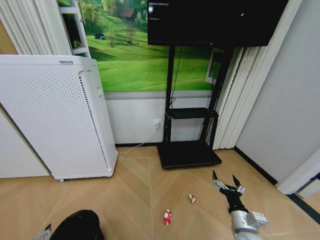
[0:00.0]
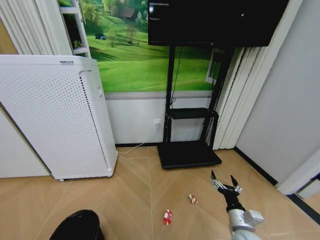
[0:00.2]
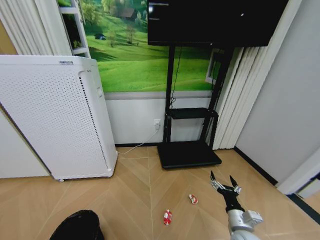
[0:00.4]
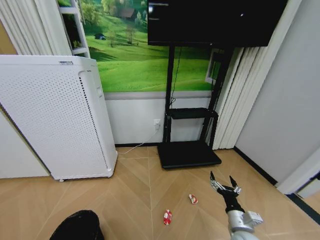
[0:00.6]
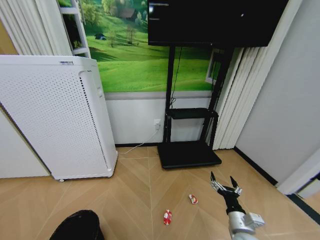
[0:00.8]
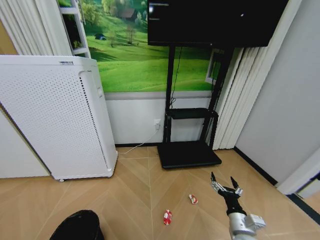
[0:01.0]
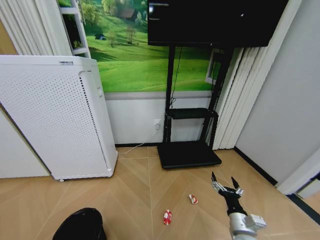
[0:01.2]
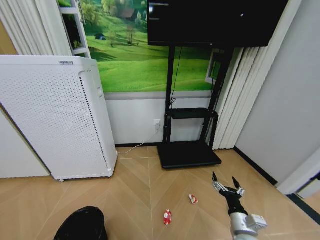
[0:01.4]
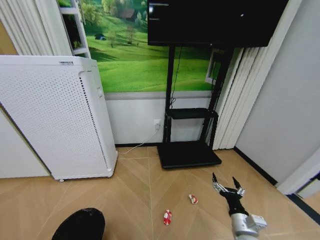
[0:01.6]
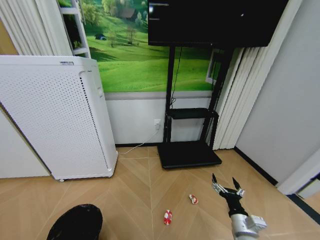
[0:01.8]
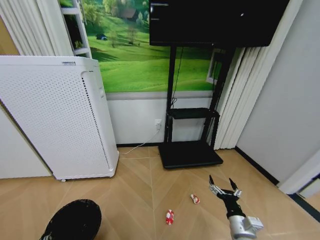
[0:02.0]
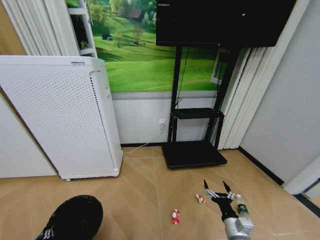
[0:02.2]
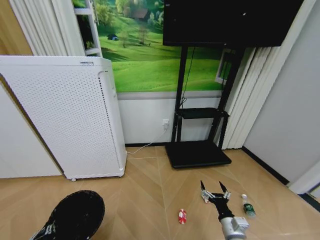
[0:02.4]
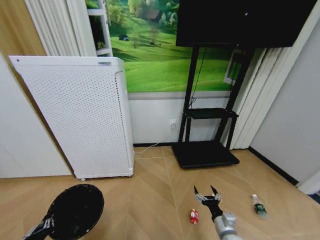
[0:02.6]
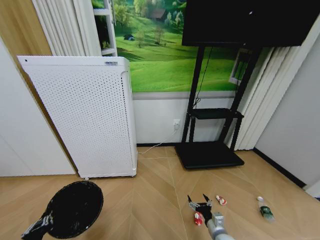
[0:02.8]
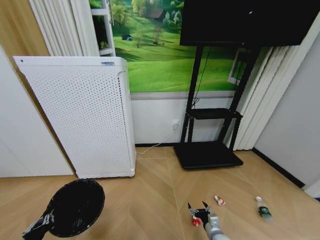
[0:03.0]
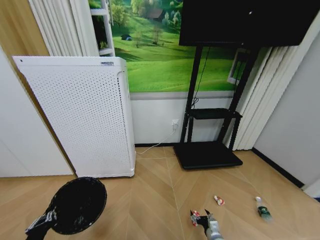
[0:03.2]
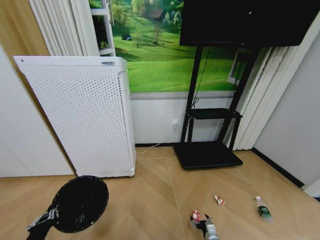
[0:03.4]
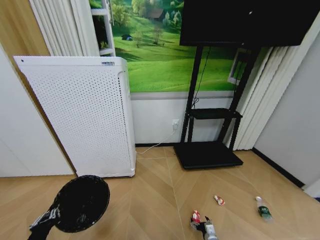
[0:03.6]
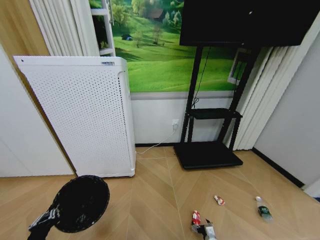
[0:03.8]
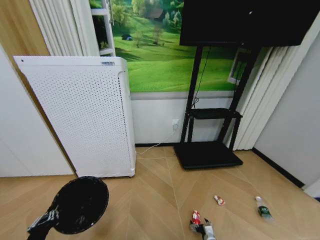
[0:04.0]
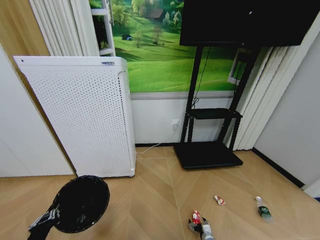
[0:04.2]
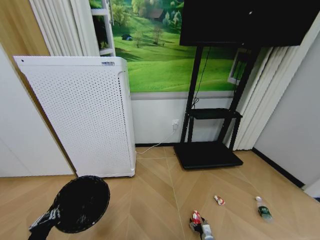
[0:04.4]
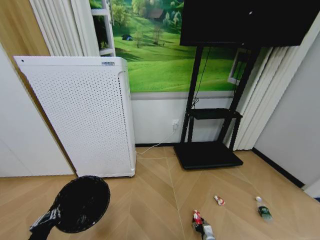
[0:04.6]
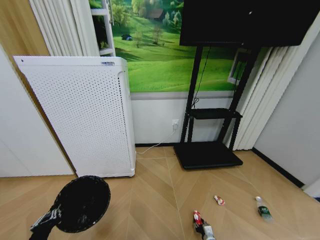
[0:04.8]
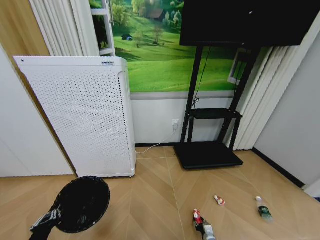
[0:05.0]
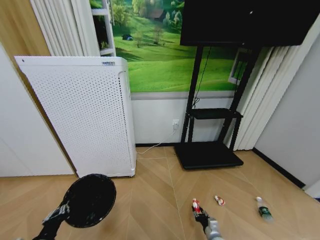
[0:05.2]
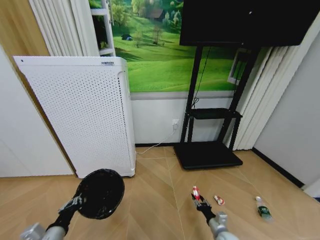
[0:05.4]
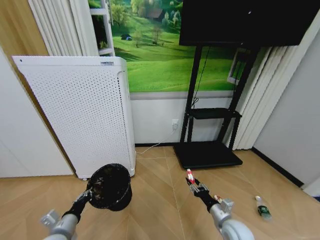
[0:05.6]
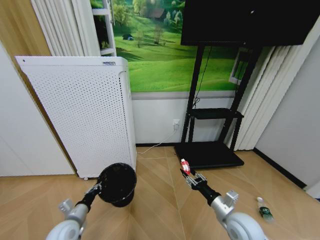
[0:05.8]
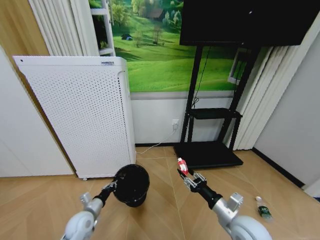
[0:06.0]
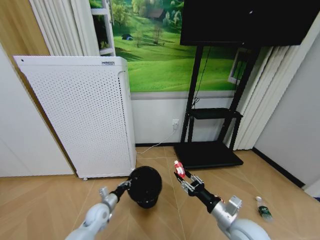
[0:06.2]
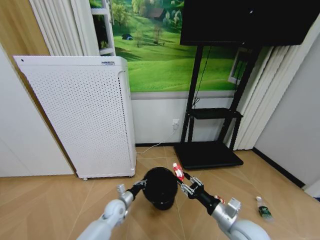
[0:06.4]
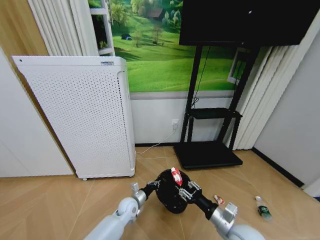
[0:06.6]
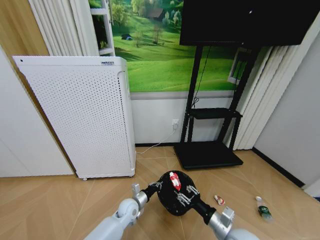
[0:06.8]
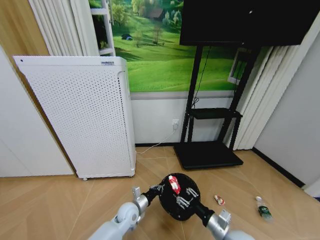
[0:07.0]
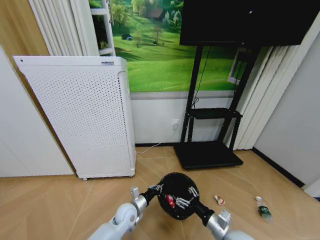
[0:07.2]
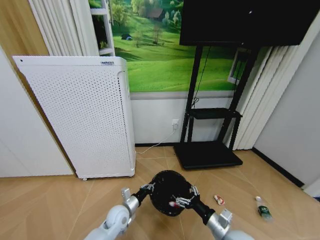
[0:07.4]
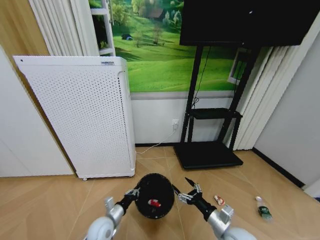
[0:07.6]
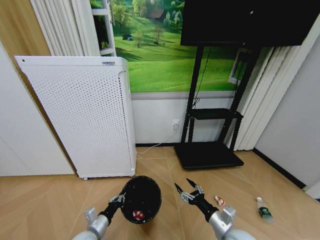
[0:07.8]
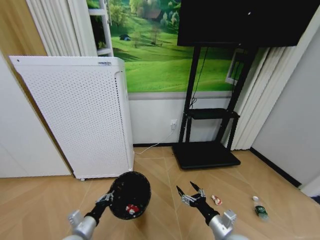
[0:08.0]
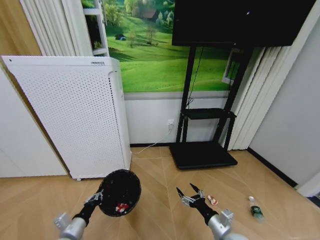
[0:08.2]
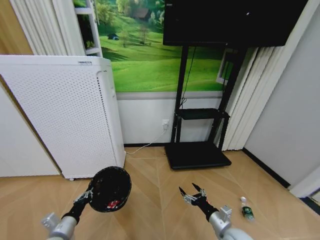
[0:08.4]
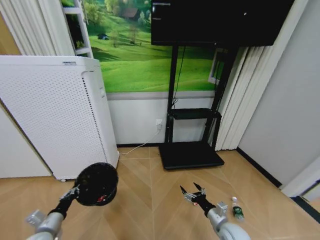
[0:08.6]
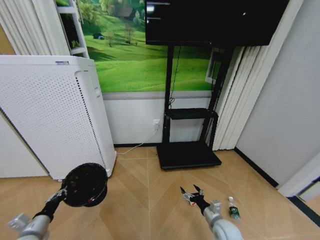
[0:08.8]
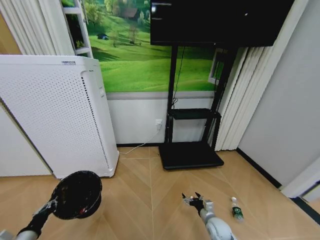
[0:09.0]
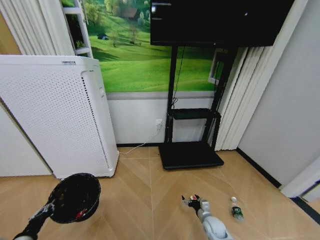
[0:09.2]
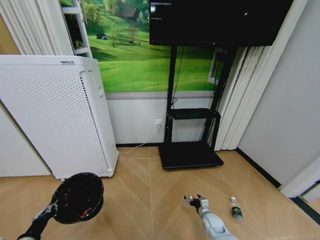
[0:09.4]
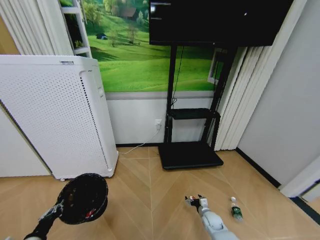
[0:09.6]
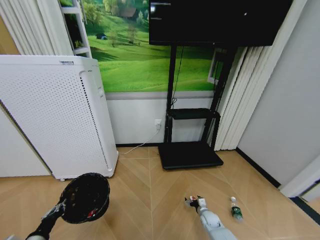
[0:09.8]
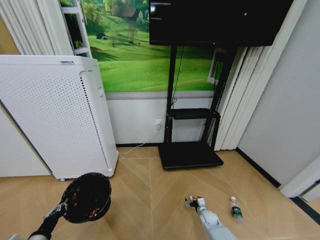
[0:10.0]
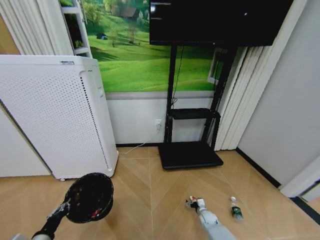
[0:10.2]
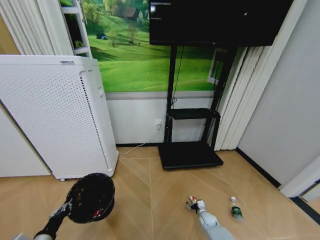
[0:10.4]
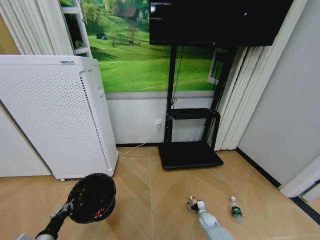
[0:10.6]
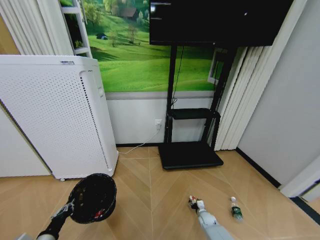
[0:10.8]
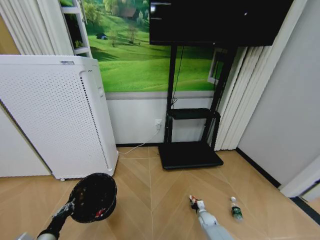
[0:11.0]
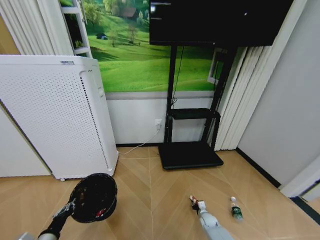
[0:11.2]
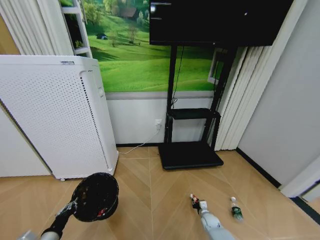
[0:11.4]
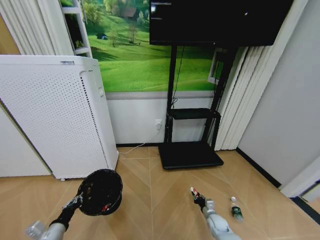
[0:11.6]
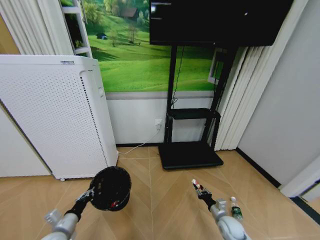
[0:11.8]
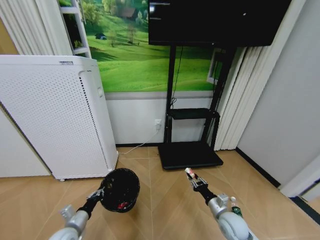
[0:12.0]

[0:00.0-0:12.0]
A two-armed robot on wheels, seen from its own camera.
Task of the whole recording: Pick up the trash bin and place the garbage on the floor into it.
0:01.6 to 0:03.0: The right gripper shifts roughly 15 cm downward, while the left gripper shifts roughly 5 cm upward.
0:03.0 to 0:04.4: The right gripper travels downward by about 10 cm.
0:04.4 to 0:06.0: The right gripper is displaced upward by roughly 35 cm, and closes. Meanwhile the left gripper travels forward and downward by about 20 cm.
0:06.0 to 0:07.6: The right gripper goes about 5 cm downward, and opens its fingers; the left gripper is displaced to the right by about 10 cm.
0:07.6 to 0:09.0: The left gripper goes some 25 cm to the left and backward, while the right gripper is displaced downward and forward by roughly 15 cm.
0:09.0 to 0:10.4: The right gripper shifts about 15 cm downward and forward. Meanwhile the left gripper is displaced to the right by roughly 5 cm.
0:10.4 to 0:12.0: The left gripper travels forward and to the right by roughly 10 cm; the right gripper goes about 15 cm upward, and closes up.

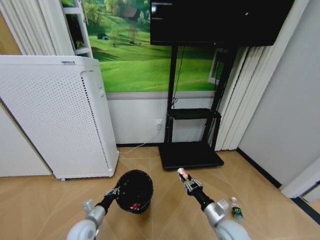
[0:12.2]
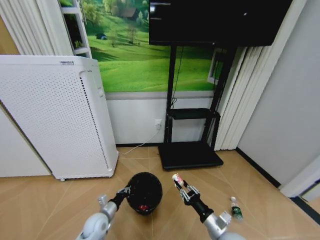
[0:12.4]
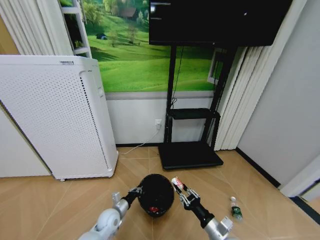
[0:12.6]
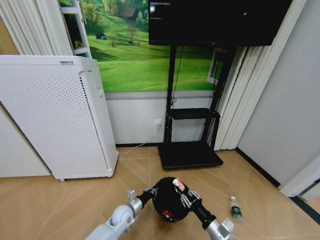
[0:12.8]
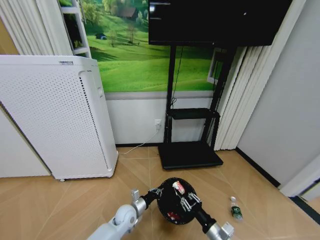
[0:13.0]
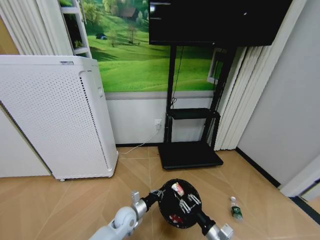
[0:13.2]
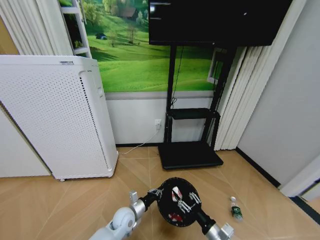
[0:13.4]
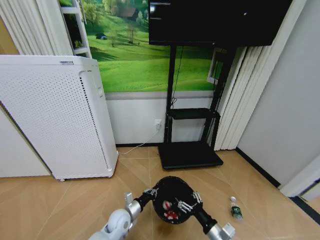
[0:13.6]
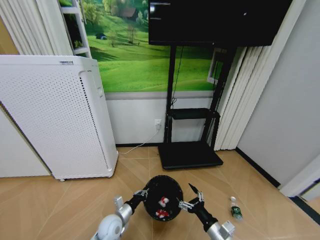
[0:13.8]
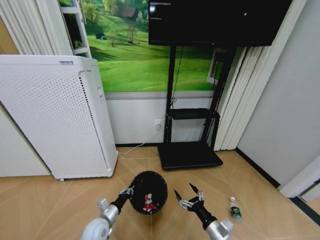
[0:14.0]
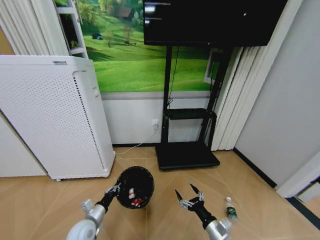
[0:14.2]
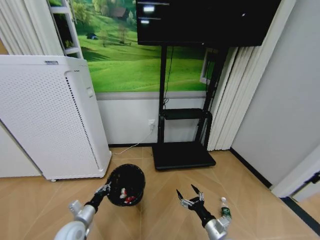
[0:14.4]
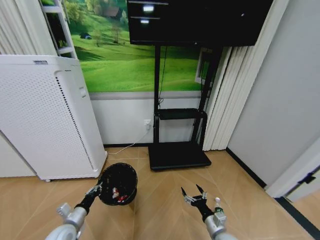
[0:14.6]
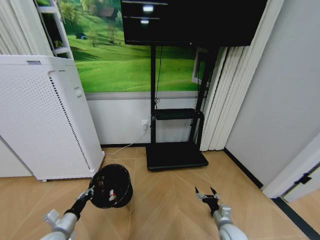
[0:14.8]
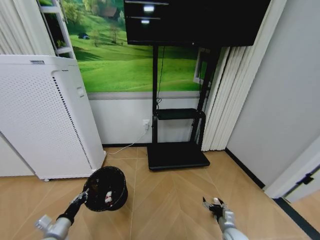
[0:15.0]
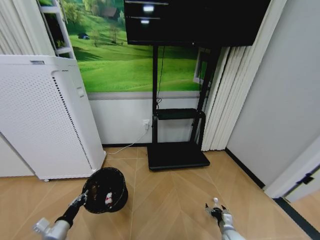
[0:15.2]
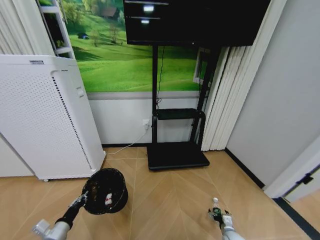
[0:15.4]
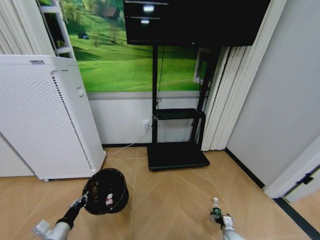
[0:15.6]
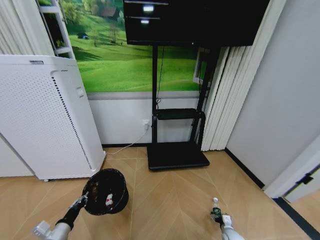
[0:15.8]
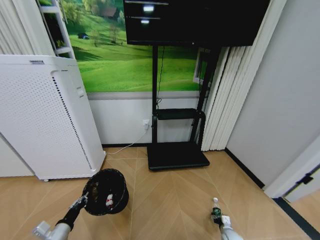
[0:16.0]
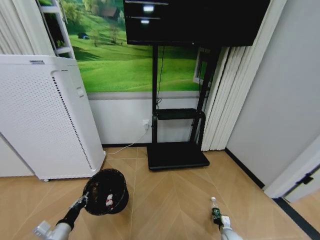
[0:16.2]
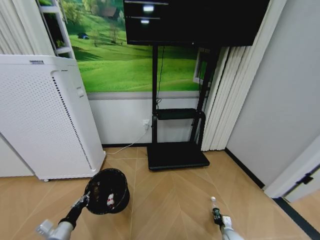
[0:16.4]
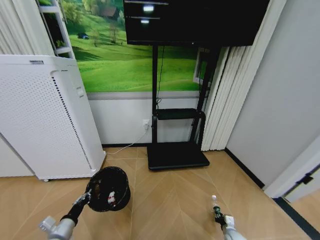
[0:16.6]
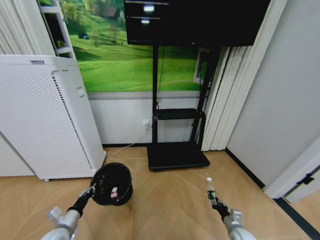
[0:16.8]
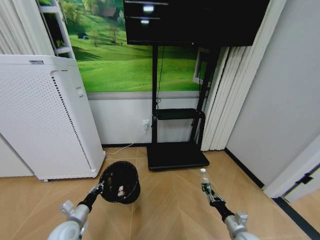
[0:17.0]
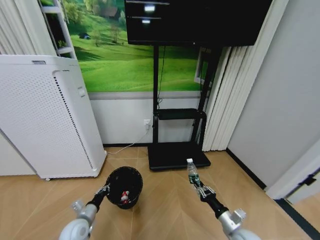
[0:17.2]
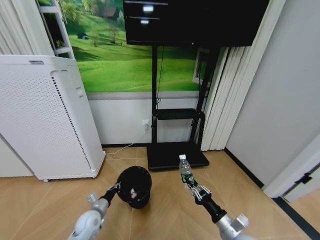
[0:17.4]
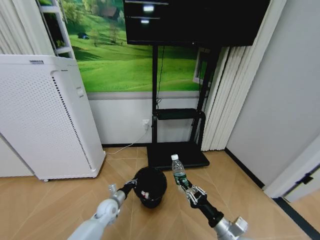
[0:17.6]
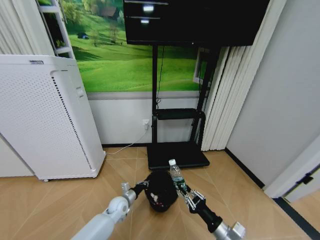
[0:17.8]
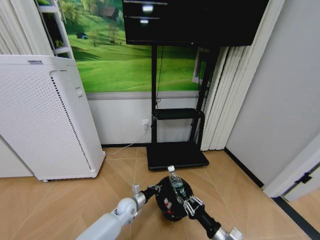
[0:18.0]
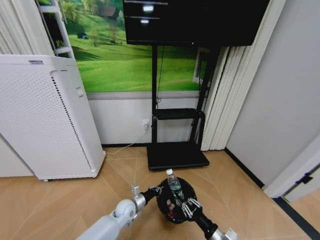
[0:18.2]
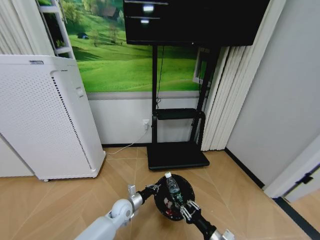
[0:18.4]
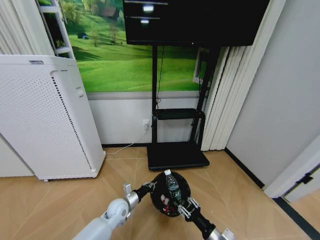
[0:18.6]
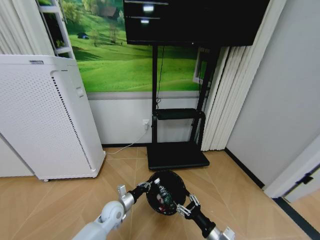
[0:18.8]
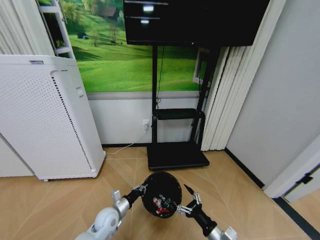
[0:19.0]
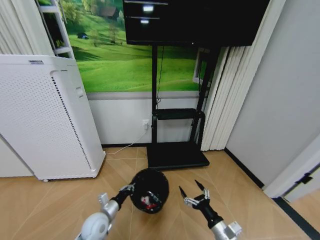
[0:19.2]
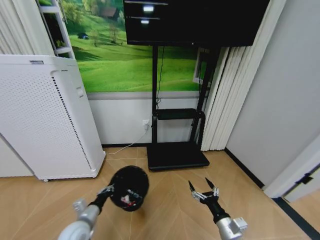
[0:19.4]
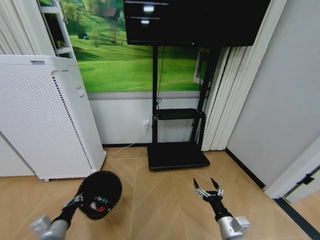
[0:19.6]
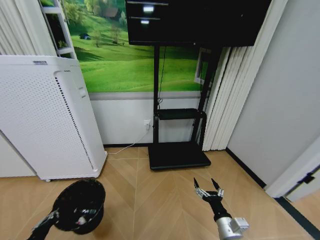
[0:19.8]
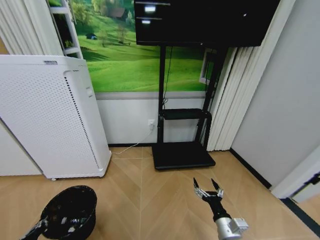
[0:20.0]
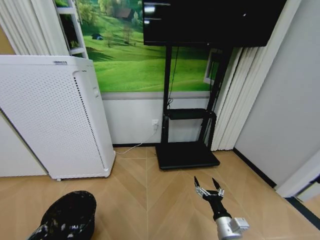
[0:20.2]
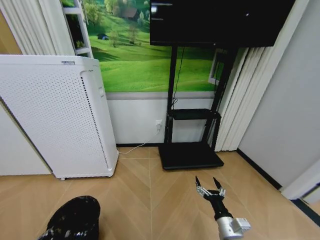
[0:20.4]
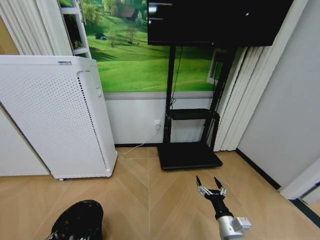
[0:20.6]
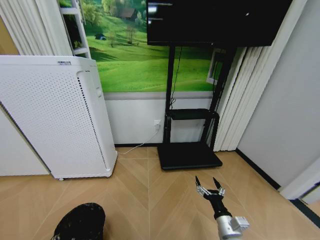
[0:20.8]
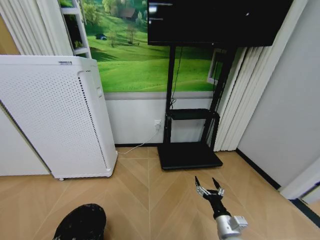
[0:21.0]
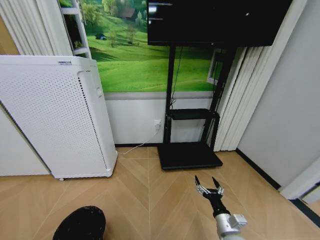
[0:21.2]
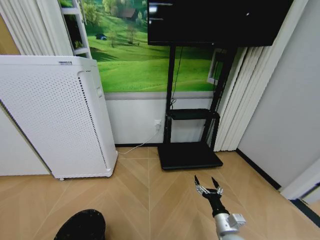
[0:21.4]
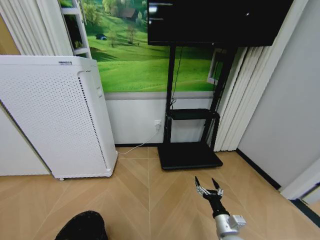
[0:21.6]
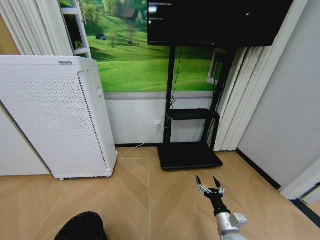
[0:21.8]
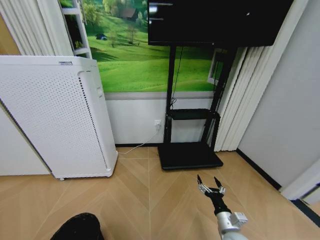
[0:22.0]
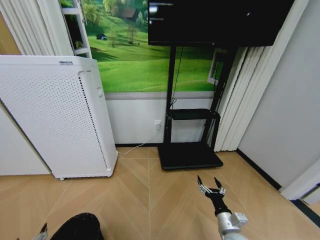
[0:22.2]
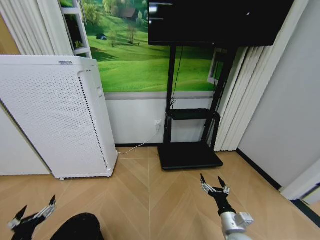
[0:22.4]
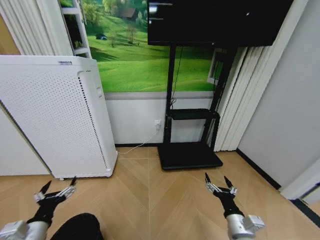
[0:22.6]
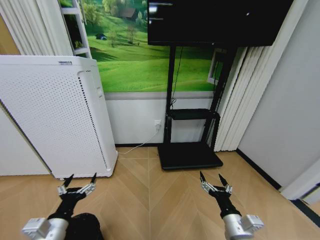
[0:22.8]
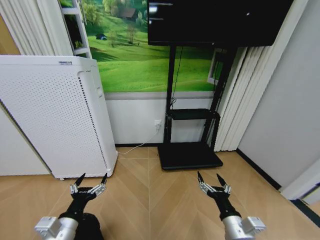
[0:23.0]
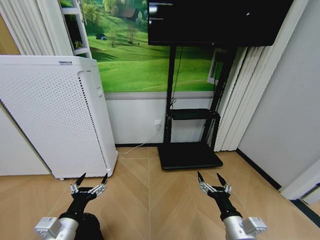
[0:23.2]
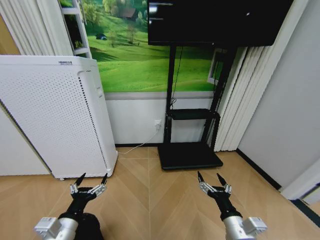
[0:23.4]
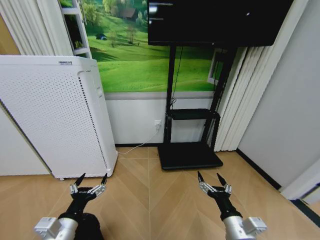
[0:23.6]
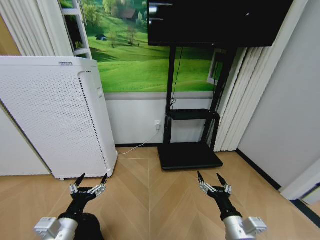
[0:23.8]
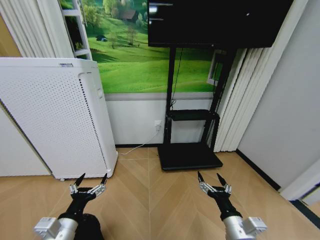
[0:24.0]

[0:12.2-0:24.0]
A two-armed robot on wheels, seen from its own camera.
Task of the whole recording: Pick up the trash bin and place the garbage on the floor into it.
0:12.2 to 0:13.6: The right gripper is displaced backward by roughly 10 cm, and opens; the left gripper goes about 15 cm to the right.
0:13.6 to 0:15.2: The right gripper is displaced downward, to the right and forward by approximately 20 cm, and opens up. The left gripper goes about 25 cm to the left and backward.
0:15.2 to 0:16.6: The right gripper moves roughly 5 cm, and closes.
0:16.6 to 0:18.2: The right gripper goes some 25 cm upward, to the left and backward. The left gripper shifts roughly 30 cm to the right and forward.
0:18.2 to 0:19.6: The right gripper opens up, while the left gripper is displaced to the left, backward and upward by approximately 30 cm.
0:19.6 to 0:21.0: The left gripper heads backward, downward and to the left, covering about 10 cm.
0:21.0 to 0:22.6: The left gripper moves upward and forward, some 15 cm, and opens.
0:22.6 to 0:24.0: The left gripper shifts some 10 cm to the right. The right gripper heads upward, covering some 5 cm.
